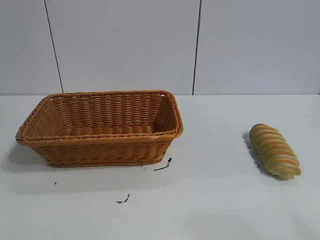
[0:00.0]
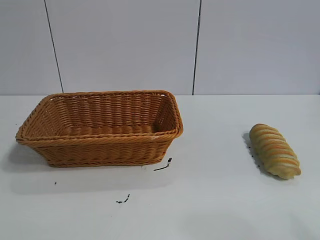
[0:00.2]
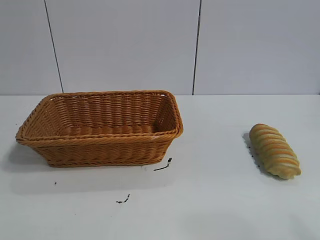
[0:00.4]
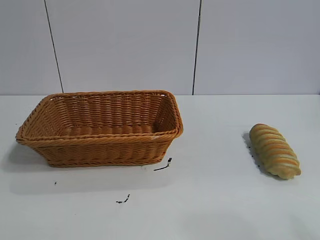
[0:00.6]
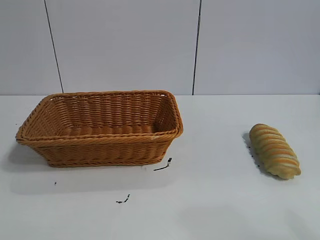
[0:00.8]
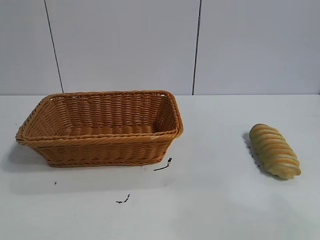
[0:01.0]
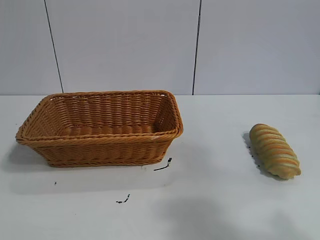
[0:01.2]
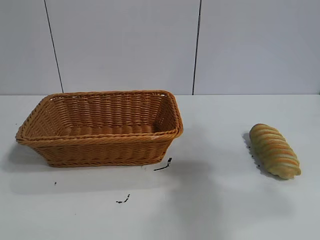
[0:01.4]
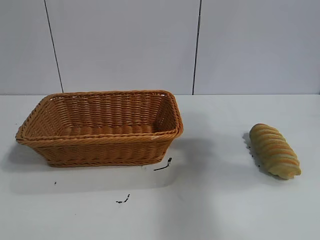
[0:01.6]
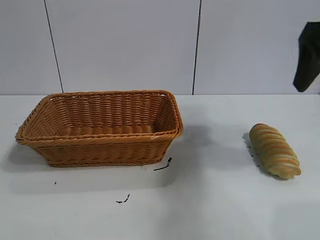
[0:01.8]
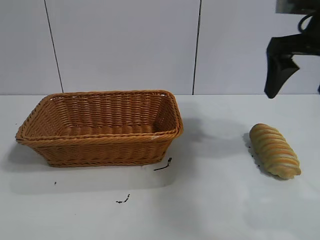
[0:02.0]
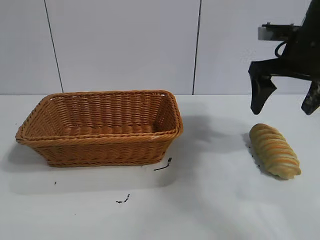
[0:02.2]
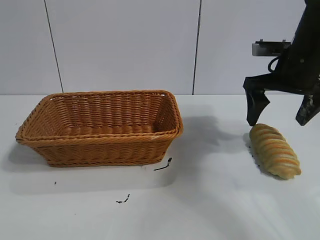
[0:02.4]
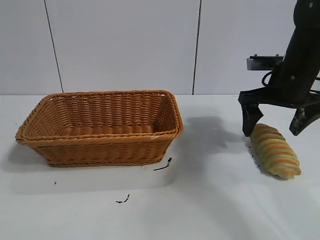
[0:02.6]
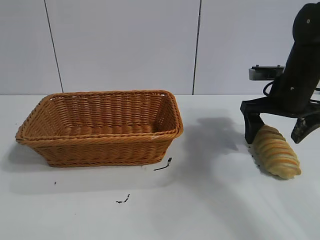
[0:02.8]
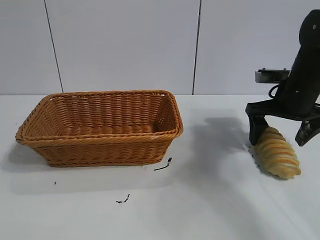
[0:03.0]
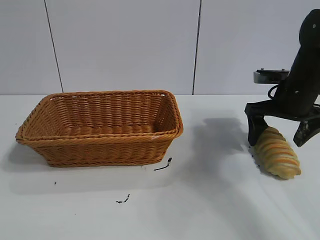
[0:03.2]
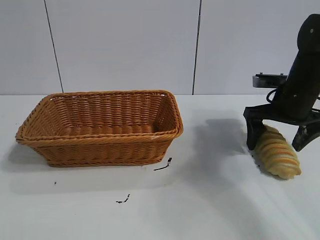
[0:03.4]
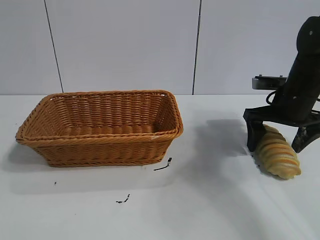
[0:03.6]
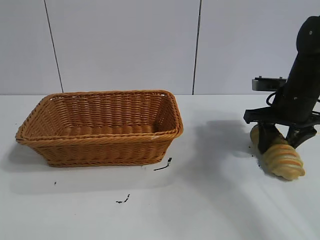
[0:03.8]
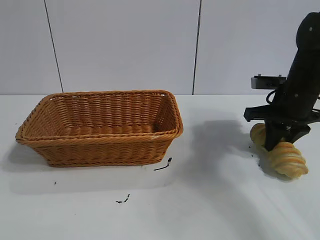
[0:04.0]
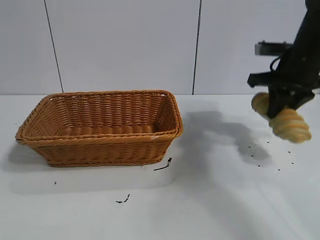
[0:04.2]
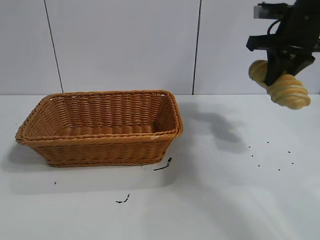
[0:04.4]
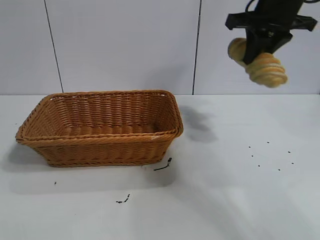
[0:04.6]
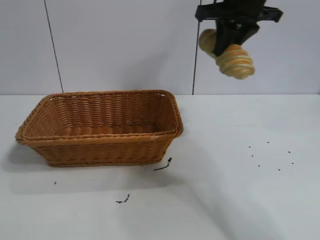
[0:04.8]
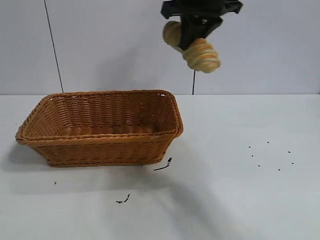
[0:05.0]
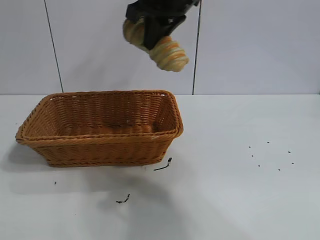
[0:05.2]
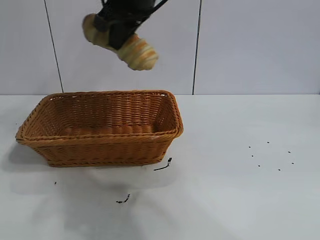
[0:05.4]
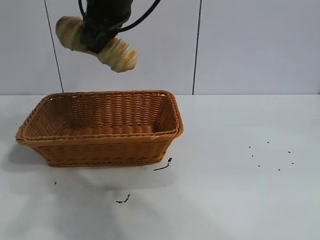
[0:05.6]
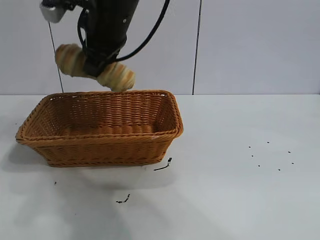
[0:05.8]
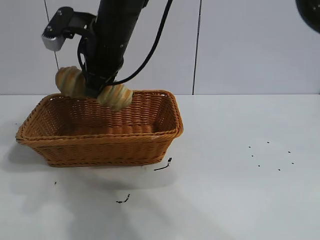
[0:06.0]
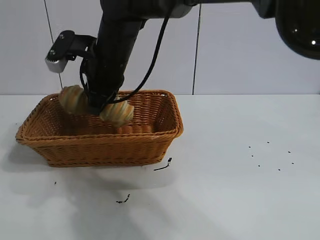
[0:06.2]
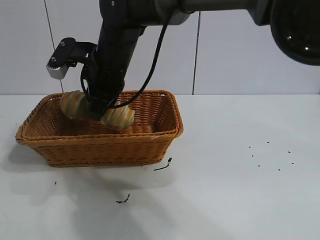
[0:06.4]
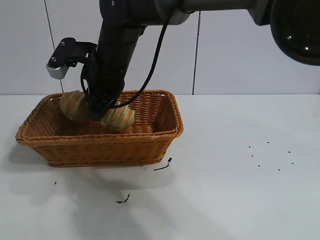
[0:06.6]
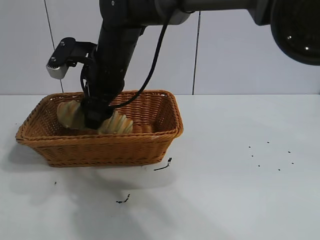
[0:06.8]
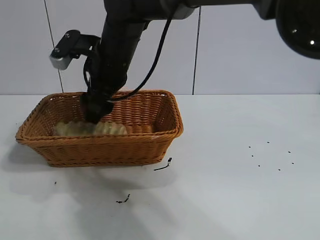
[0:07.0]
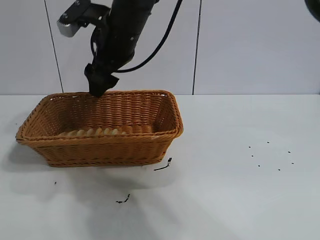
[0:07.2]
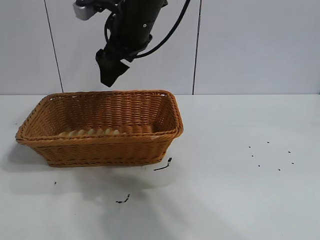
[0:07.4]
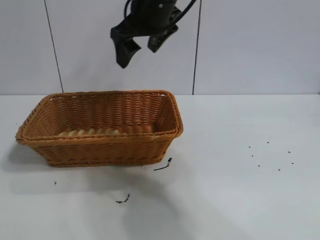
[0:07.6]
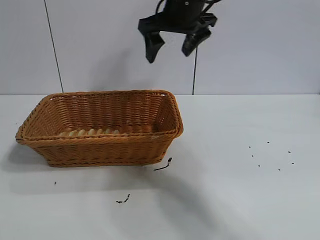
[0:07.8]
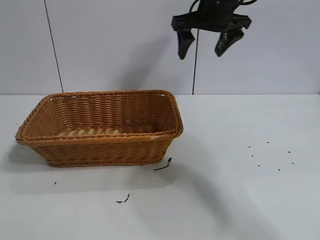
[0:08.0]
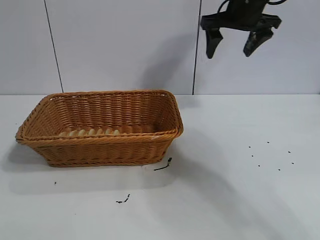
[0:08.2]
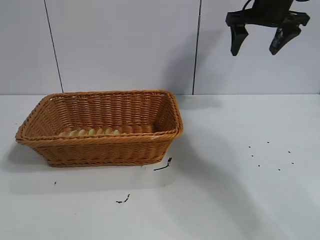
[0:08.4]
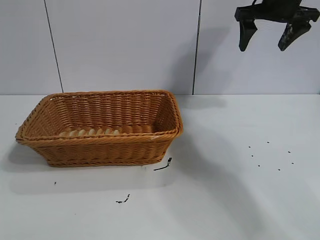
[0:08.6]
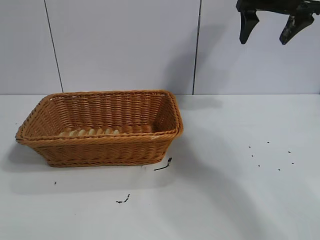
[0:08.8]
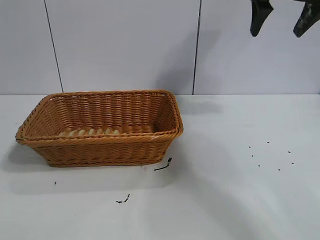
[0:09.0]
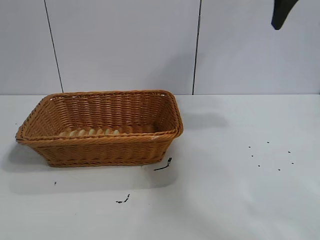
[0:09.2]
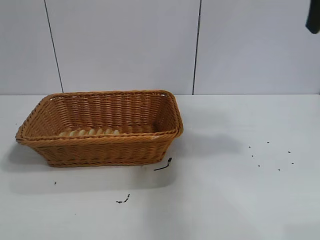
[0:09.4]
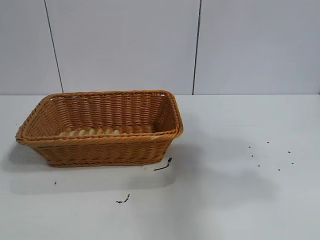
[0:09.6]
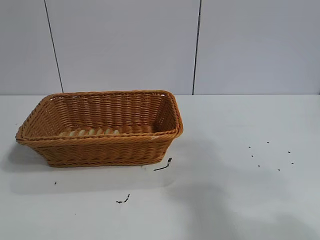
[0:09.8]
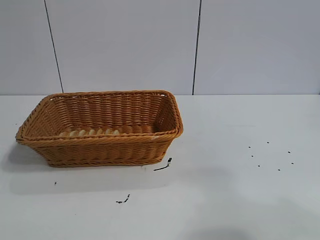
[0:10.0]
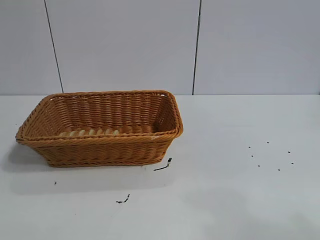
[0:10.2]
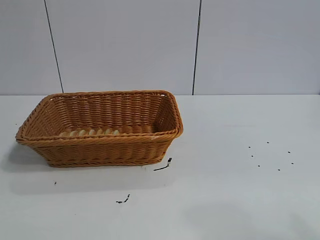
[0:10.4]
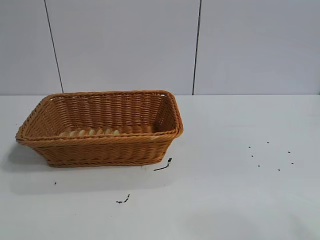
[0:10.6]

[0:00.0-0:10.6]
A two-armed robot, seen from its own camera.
Task of the whole recording: pick up the long bread and put it into the basket.
Step, 0:01.8 to 0:04.0: Grasp the long bread with right gripper.
Step, 0:04.2 to 0:07.0: Place the long bread in the basket with right gripper.
